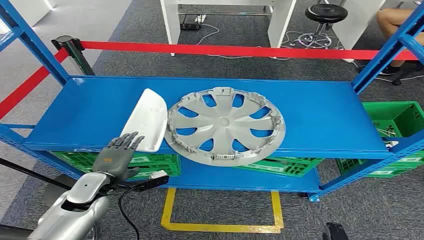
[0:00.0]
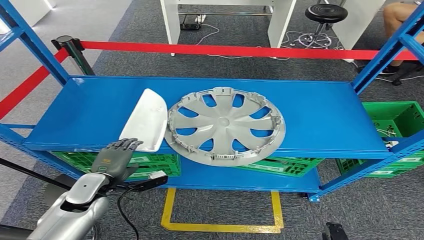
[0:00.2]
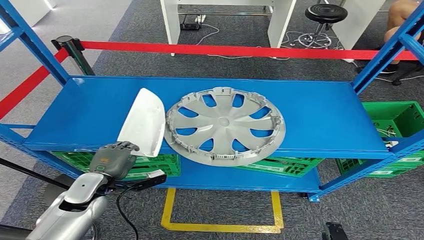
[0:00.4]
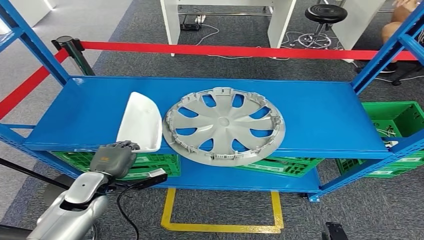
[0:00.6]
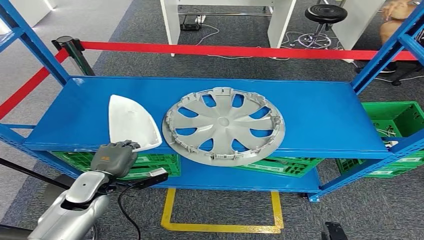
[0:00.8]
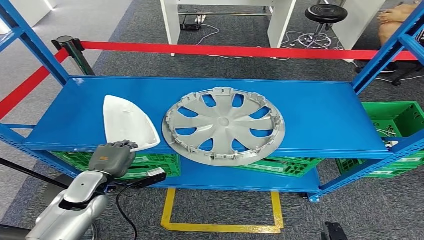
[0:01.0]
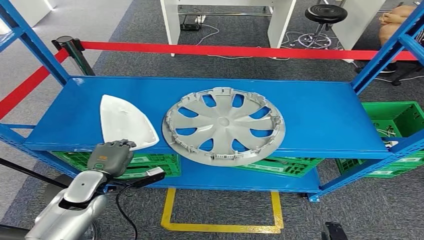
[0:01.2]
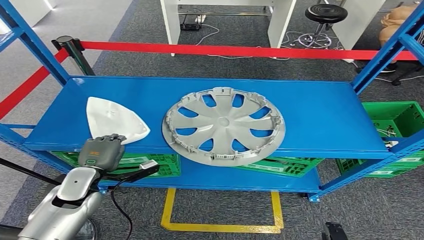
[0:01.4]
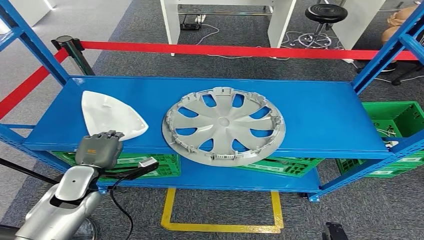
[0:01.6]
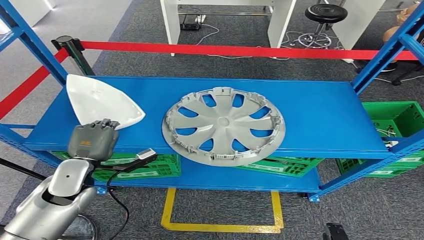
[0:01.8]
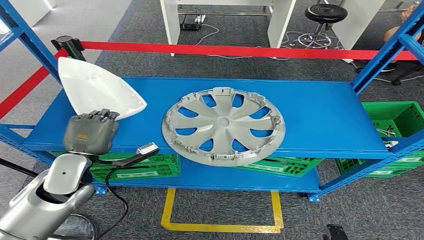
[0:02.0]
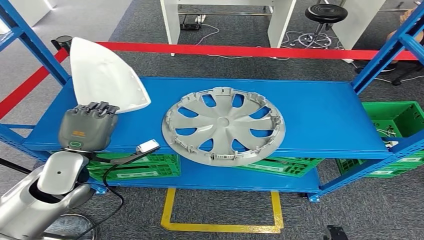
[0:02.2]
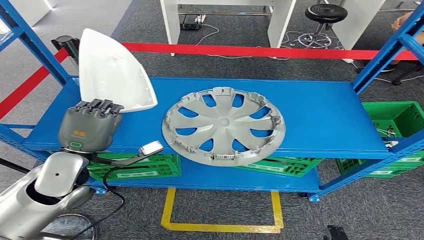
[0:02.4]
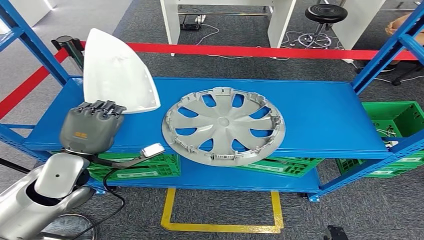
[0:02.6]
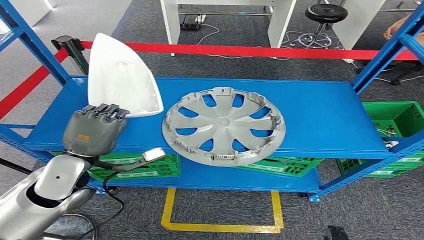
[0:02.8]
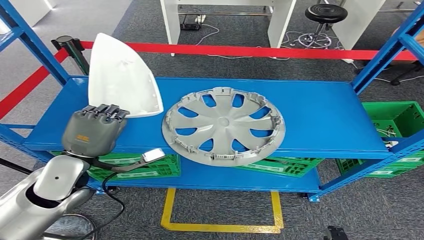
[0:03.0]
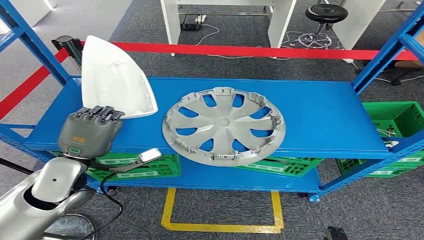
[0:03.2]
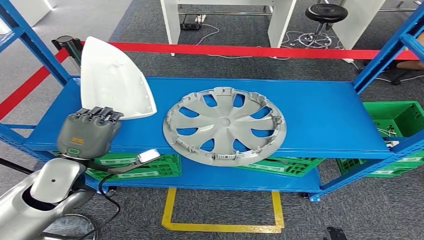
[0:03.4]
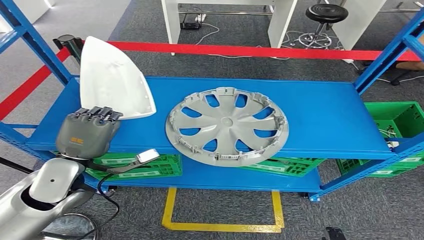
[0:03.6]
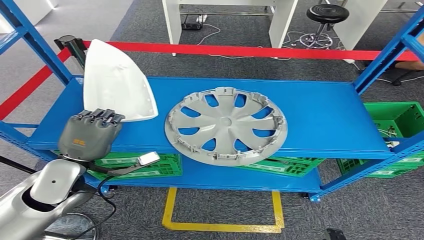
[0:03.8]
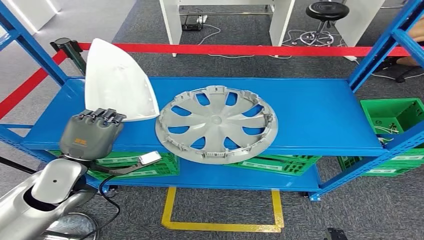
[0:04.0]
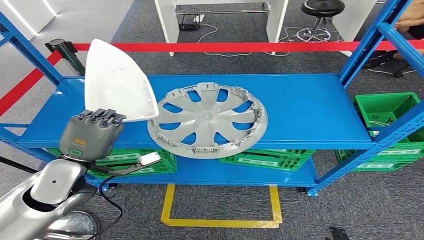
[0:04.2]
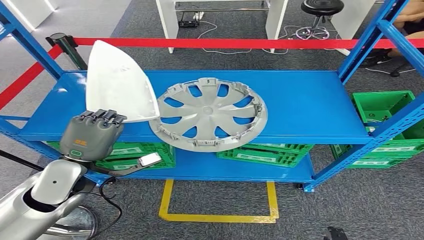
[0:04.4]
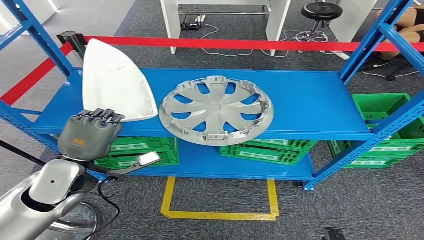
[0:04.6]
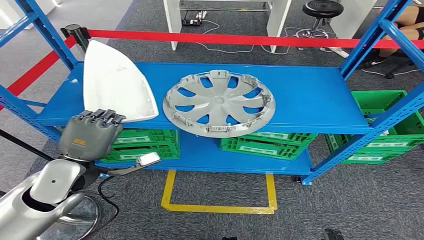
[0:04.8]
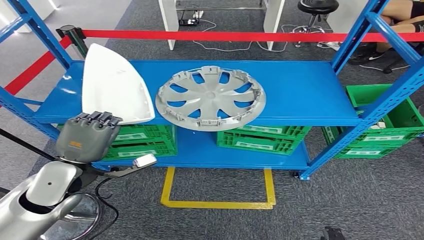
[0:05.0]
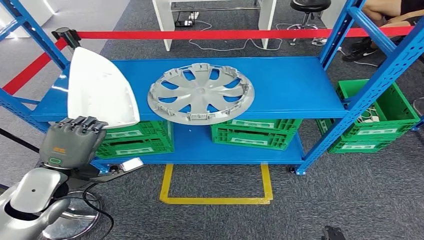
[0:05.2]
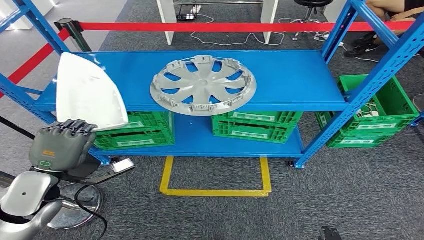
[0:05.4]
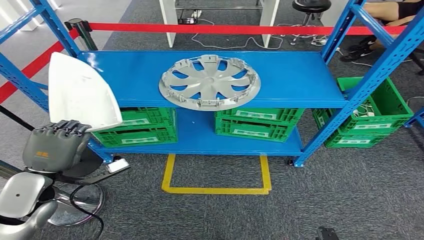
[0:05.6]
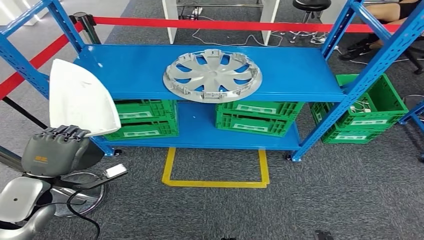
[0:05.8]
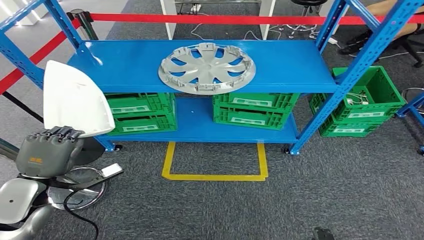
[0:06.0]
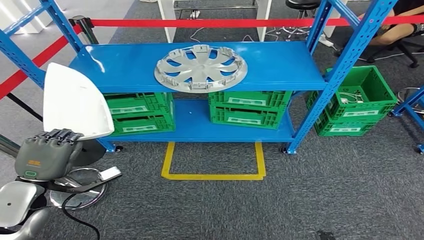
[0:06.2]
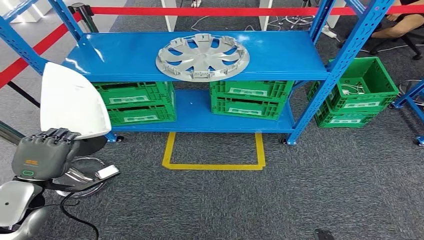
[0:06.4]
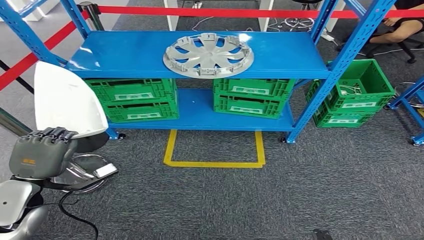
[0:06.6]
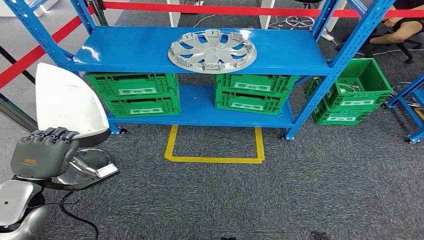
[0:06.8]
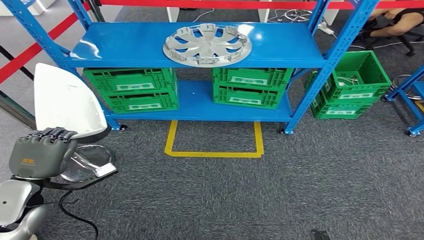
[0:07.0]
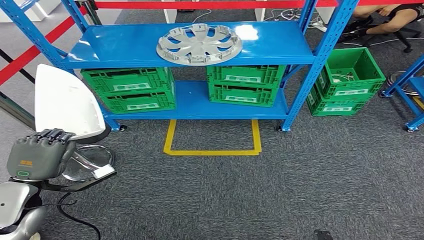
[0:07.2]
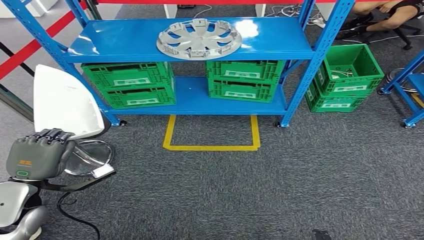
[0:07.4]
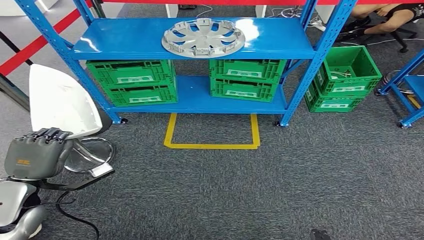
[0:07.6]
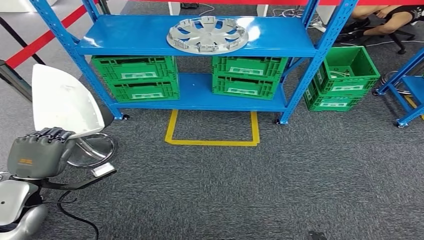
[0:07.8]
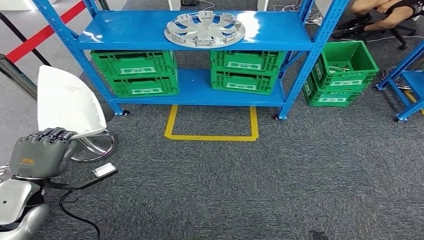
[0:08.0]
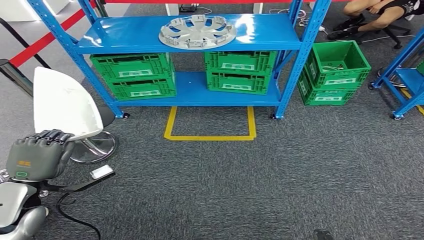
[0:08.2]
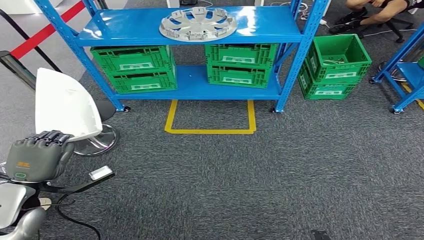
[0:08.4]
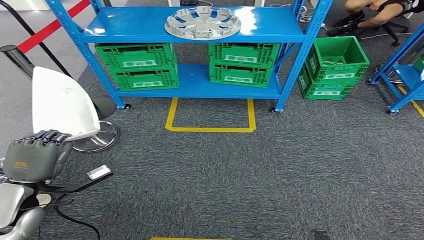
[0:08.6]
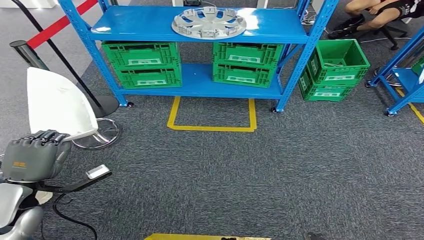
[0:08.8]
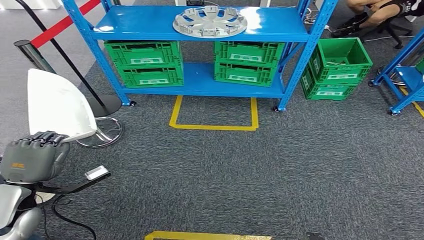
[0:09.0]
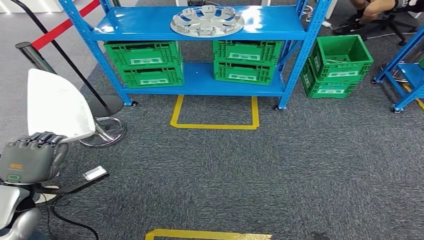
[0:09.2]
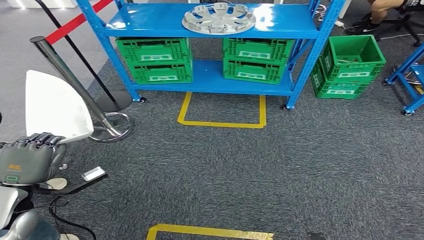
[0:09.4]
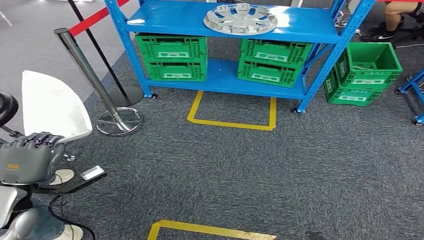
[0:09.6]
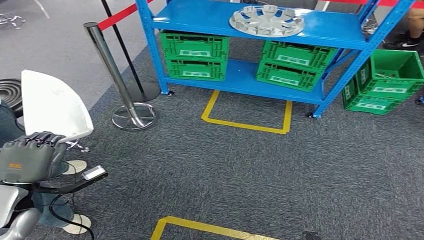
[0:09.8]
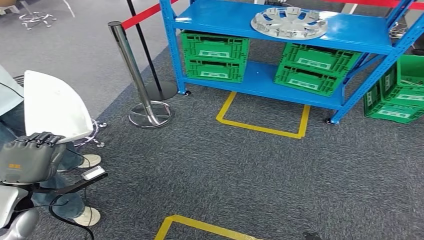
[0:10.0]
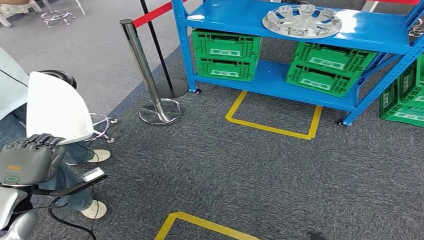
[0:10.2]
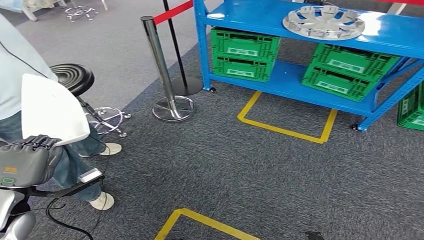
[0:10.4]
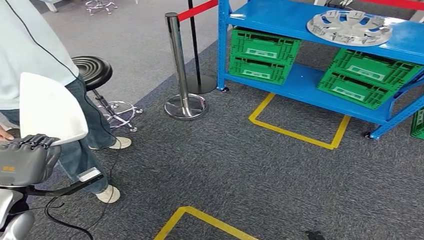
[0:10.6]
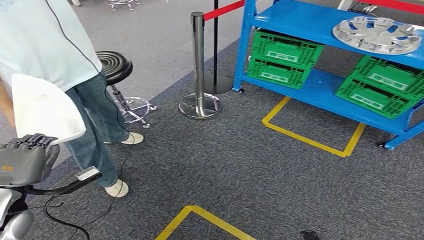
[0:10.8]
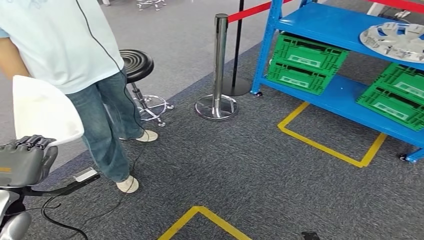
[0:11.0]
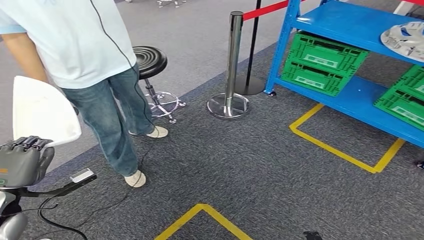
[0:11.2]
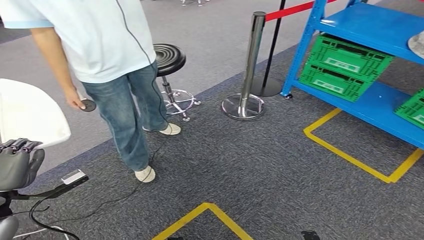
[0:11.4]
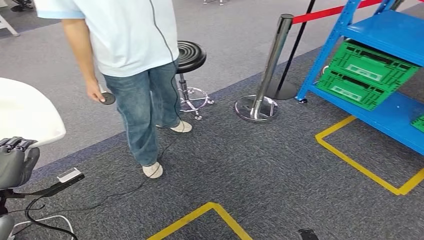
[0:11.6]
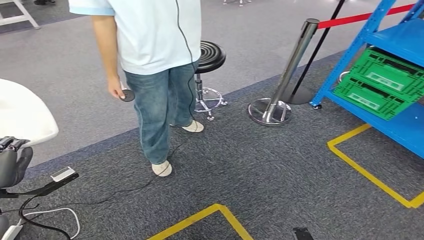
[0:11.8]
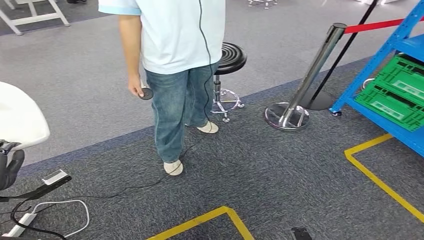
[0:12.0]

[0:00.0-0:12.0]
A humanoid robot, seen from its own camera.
Step, 0:00.0 to 0:05.4: Pick up the small component from the shelf.
0:01.6 to 0:03.0: The left hand travels upward by approximately 10 cm.

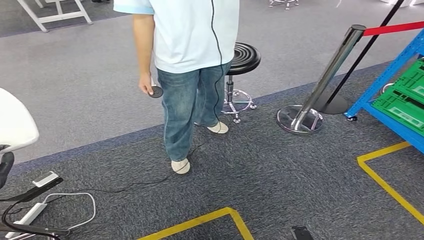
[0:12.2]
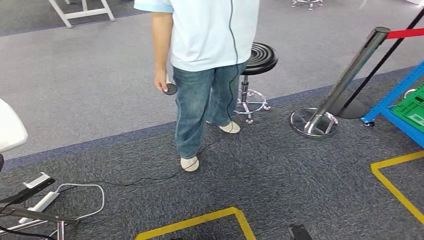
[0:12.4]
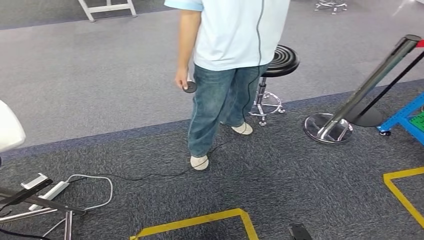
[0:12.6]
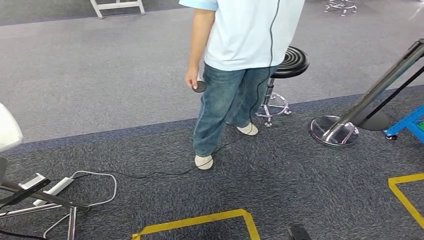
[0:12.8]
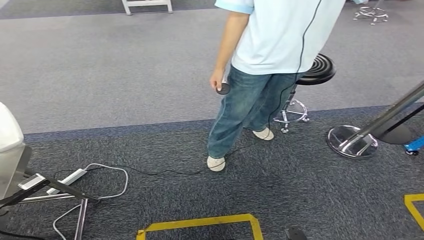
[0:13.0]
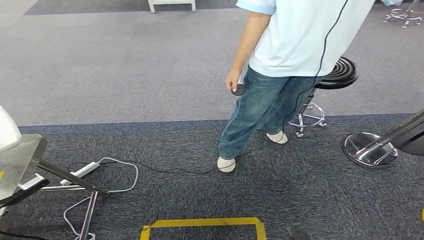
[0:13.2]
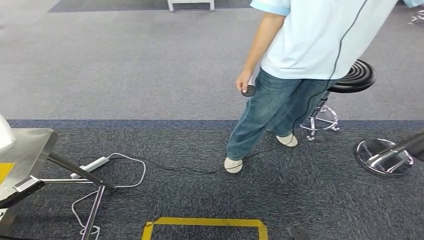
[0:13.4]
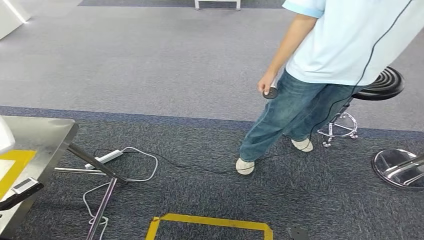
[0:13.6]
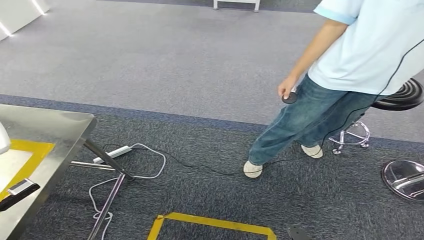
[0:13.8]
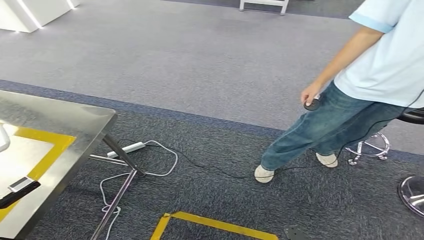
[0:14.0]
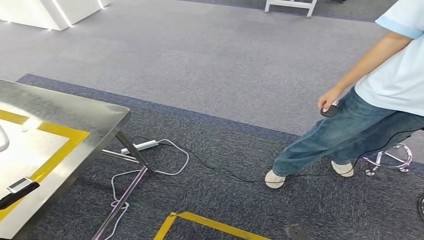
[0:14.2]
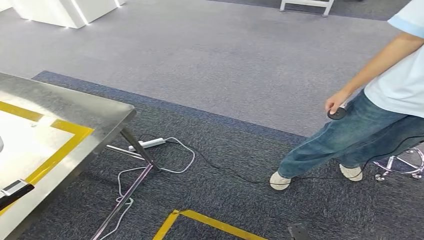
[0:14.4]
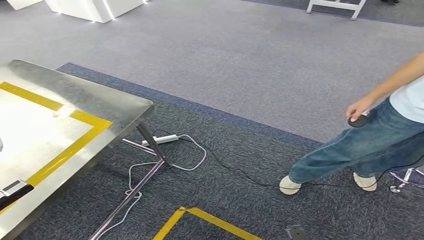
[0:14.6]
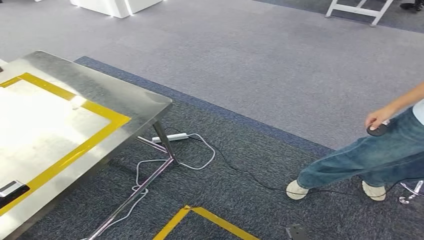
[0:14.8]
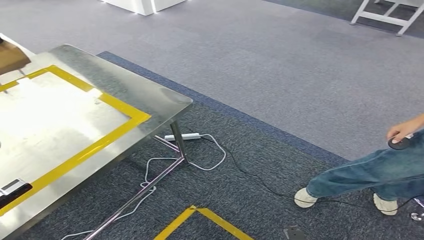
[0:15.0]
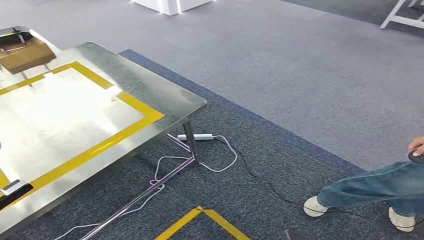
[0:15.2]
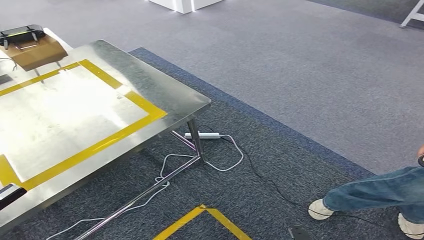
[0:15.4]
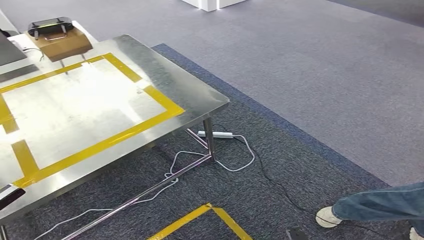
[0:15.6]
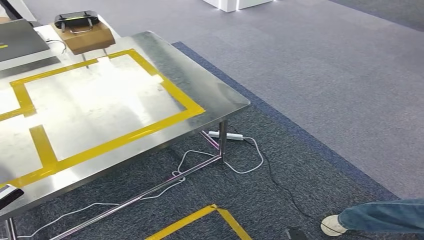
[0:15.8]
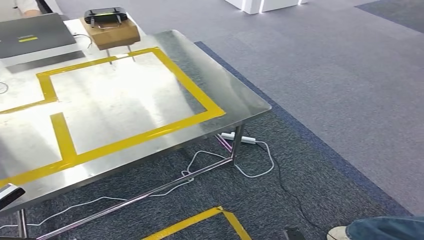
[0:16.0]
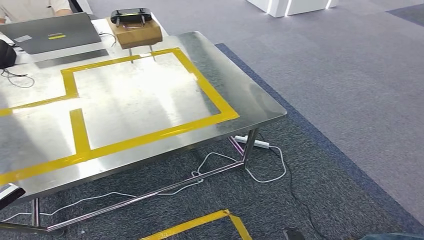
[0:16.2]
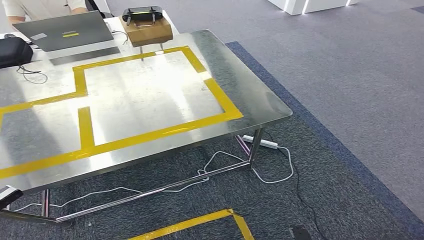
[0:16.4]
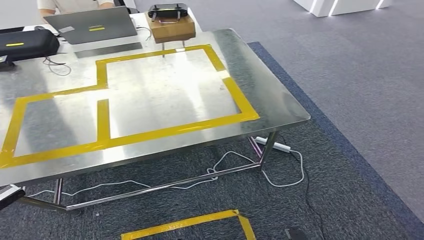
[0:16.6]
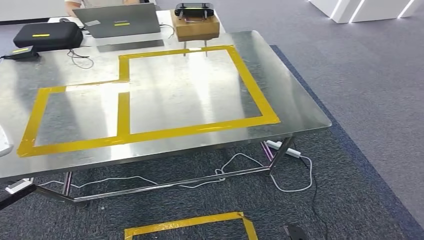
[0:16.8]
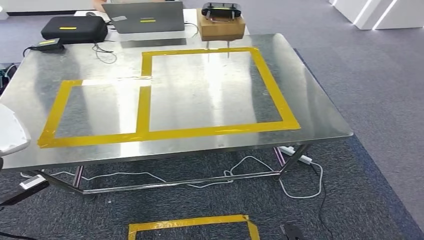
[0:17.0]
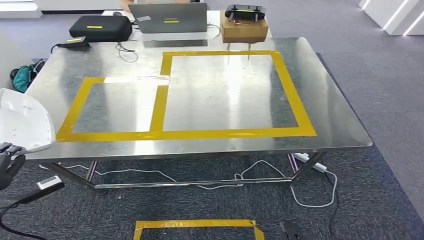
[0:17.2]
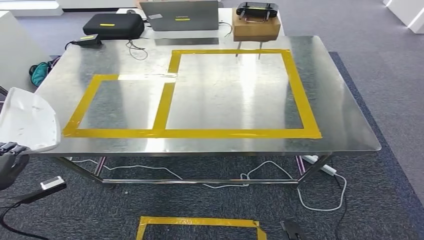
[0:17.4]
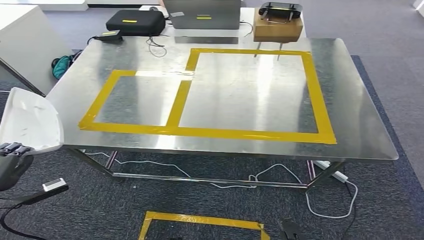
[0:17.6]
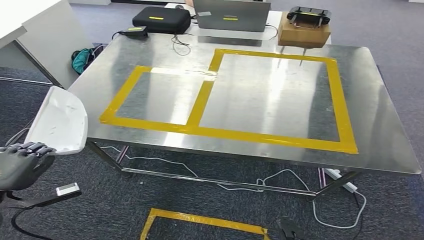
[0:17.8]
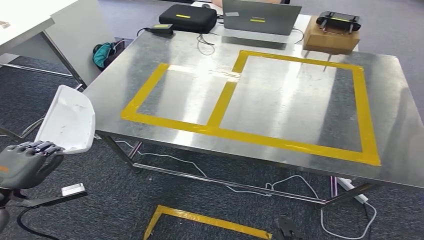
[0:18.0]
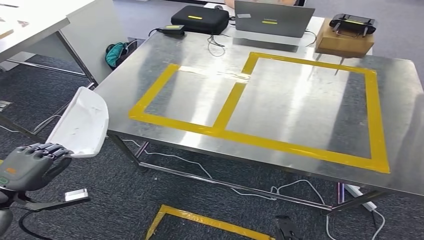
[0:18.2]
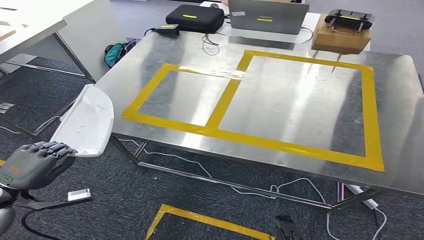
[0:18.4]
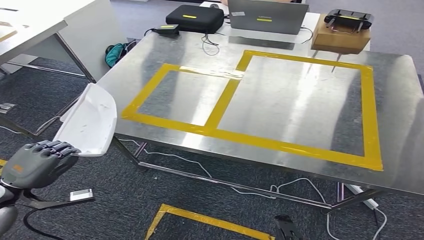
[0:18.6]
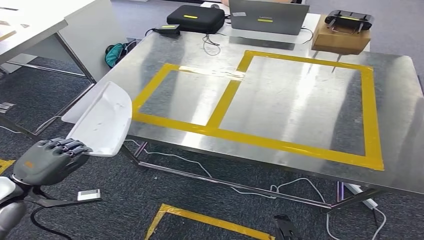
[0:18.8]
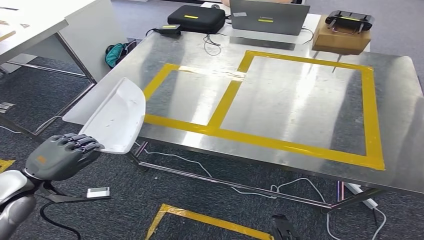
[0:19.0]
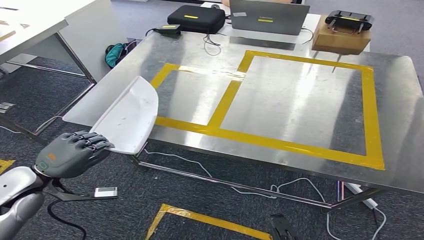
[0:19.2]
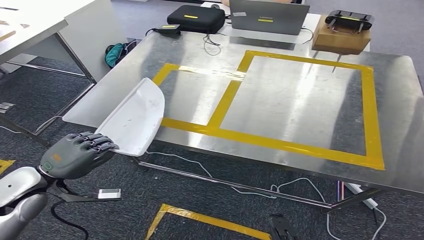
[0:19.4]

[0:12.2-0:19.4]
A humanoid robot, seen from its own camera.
Step, 0:12.2 to 0:18.2: Bring the small component to the front of the workbench.
